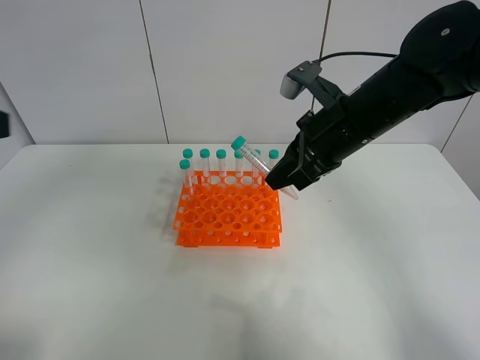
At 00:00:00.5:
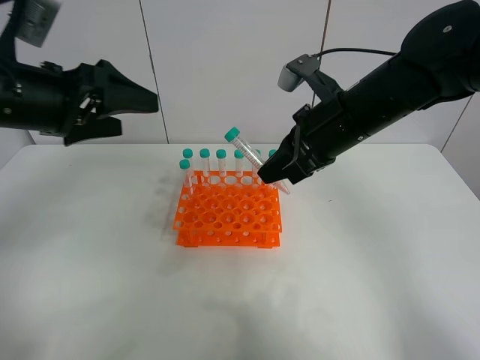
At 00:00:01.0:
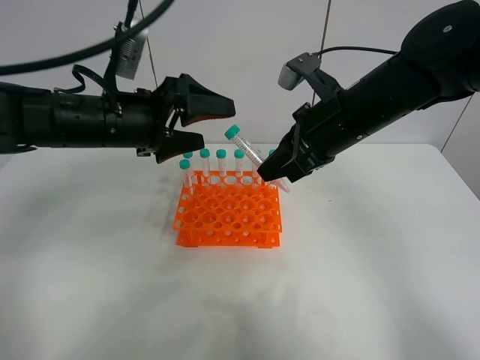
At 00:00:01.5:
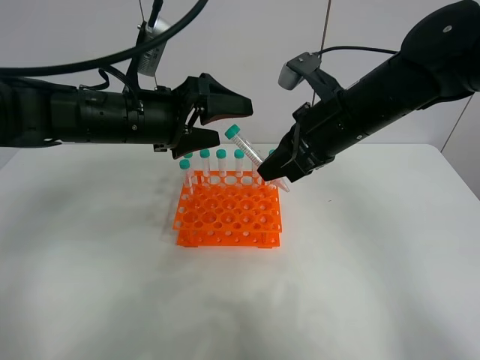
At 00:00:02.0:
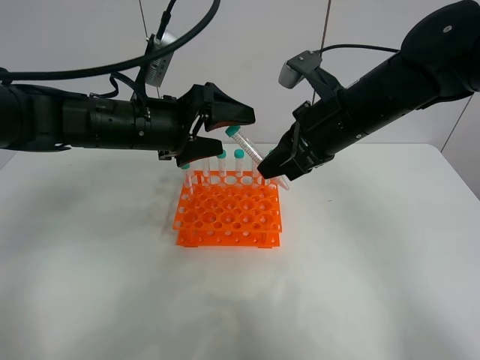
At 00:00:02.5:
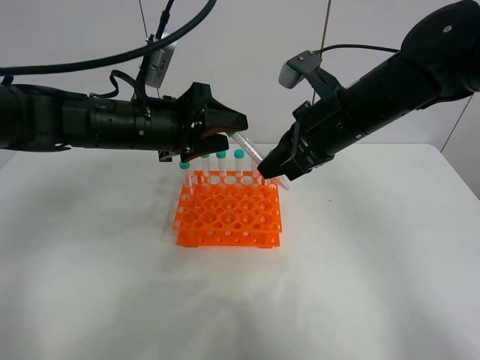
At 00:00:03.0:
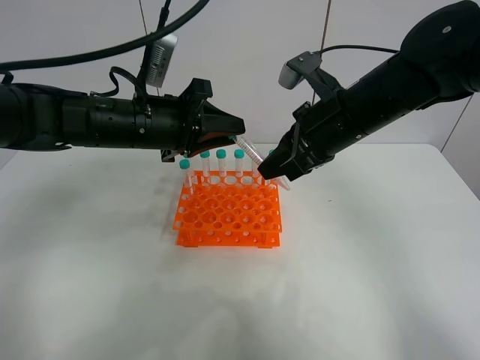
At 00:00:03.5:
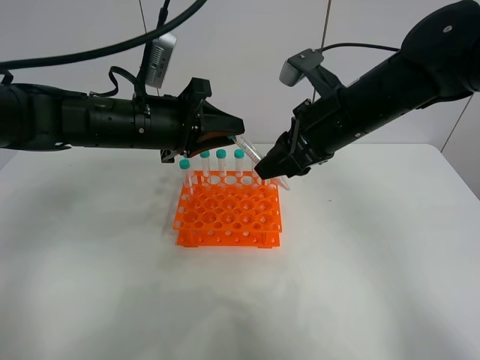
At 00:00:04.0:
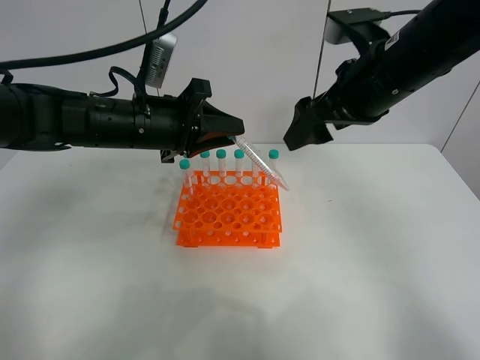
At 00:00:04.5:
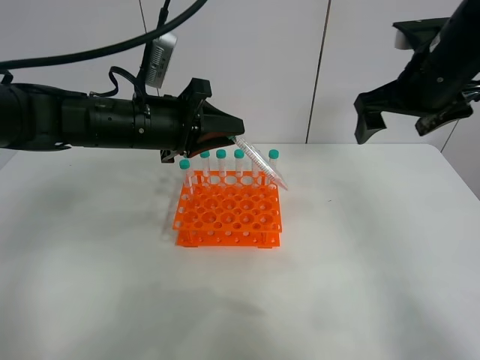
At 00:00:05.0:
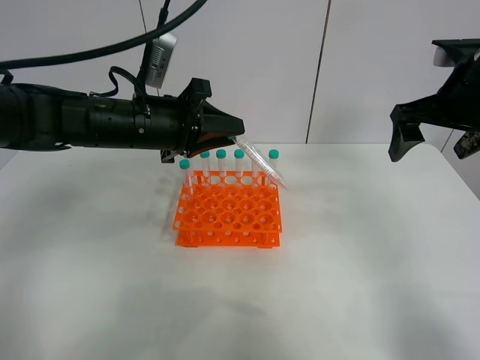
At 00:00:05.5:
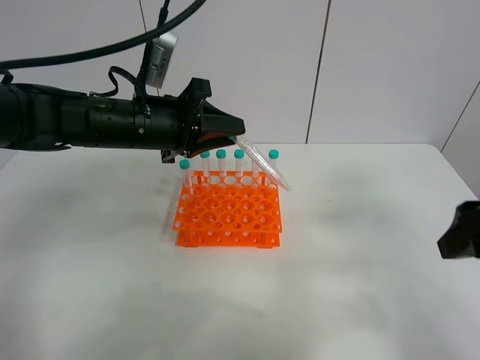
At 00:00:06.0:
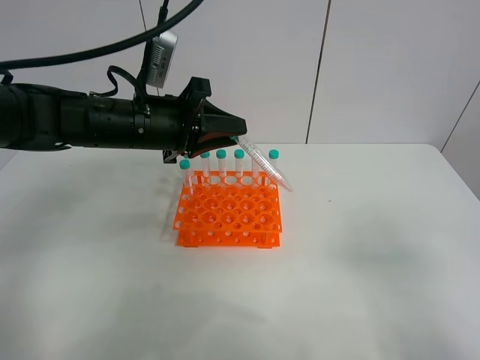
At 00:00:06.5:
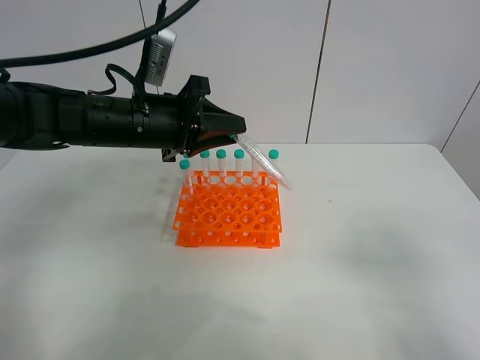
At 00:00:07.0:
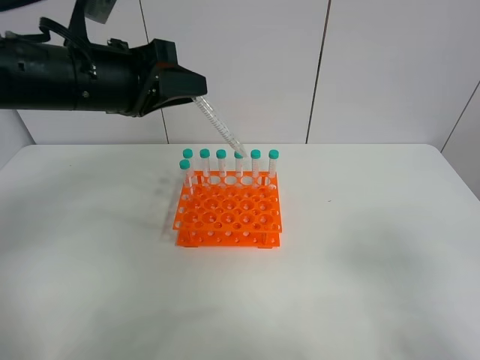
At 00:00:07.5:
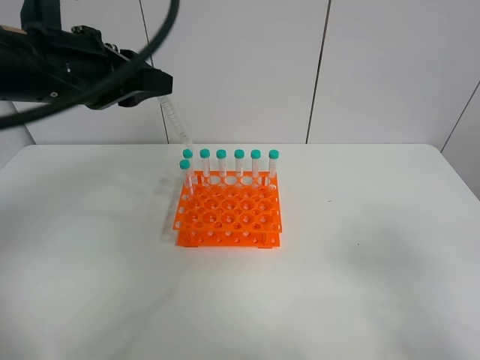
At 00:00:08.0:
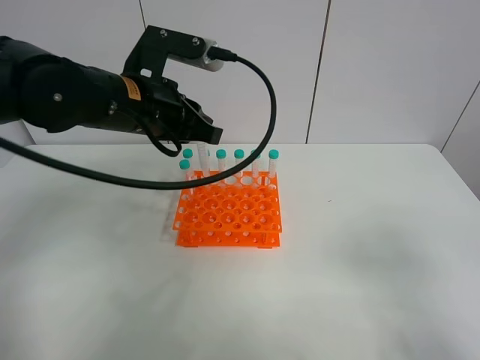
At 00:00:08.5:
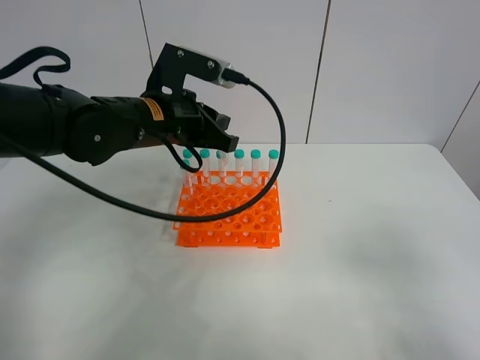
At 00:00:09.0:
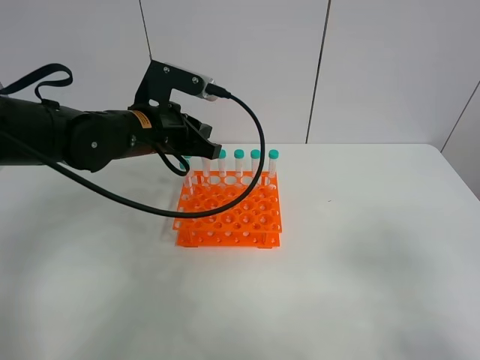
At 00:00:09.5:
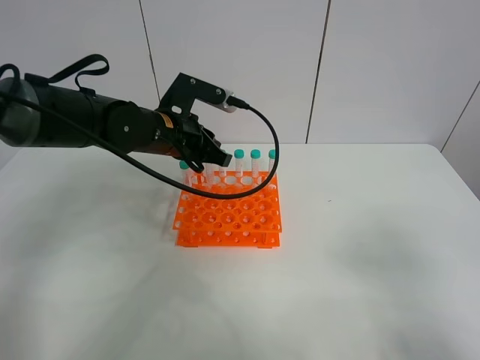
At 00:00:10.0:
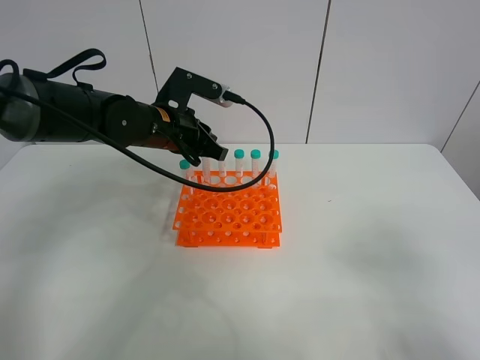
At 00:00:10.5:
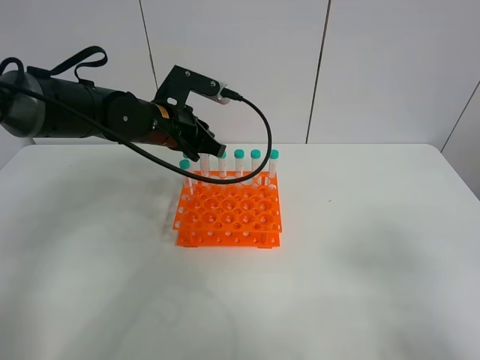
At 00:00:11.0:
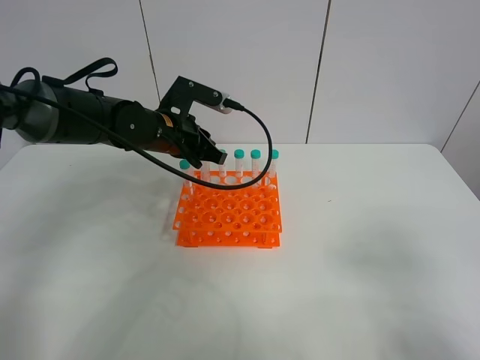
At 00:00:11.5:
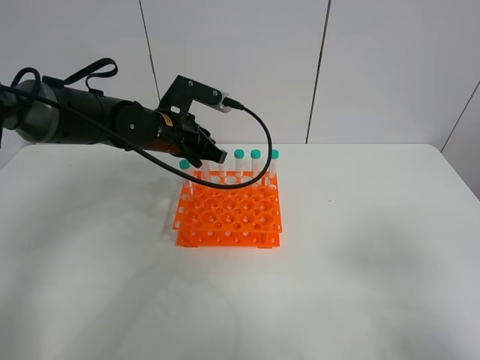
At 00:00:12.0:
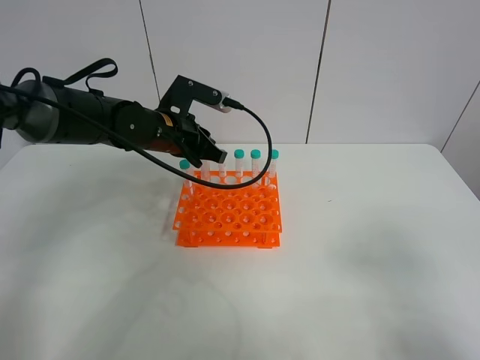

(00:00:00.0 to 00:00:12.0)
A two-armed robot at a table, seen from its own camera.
Task of the whole recording: Put the test tube on the table back onto the test tube rack.
Step, 00:00:00.0 - 00:00:04.0: Move the test tube from the right gripper to the left gripper.
00:00:00.0 - 00:00:02.0: The left gripper heads forward, to the right and downward, covering some 25 cm.
00:00:02.0 - 00:00:04.0: The left gripper closes, while the right gripper heads upward, covering some 5 cm, and opens.
00:00:04.0 - 00:00:06.0: The right gripper shifts approximately 30 cm backward and to the right.
00:00:08.0 - 00:00:10.0: The left gripper moves downward and forward, about 10 cm.
00:00:10.0 - 00:00:12.0: The grippers make only small movements.

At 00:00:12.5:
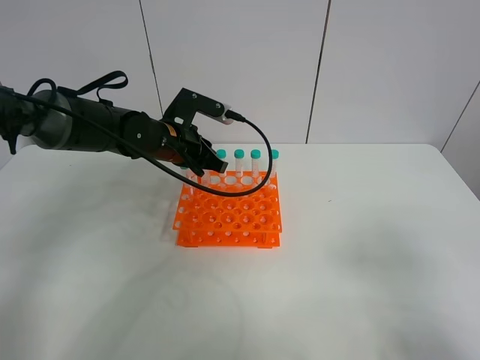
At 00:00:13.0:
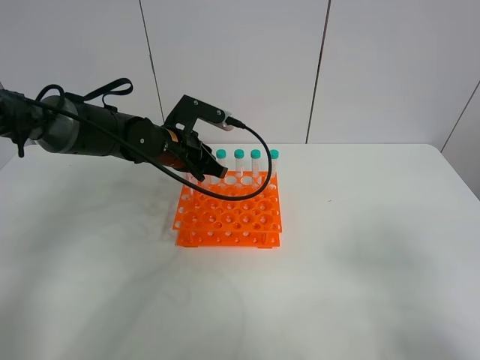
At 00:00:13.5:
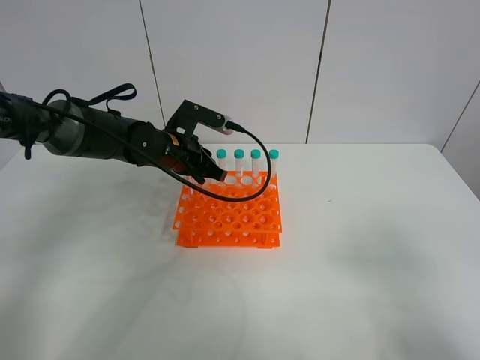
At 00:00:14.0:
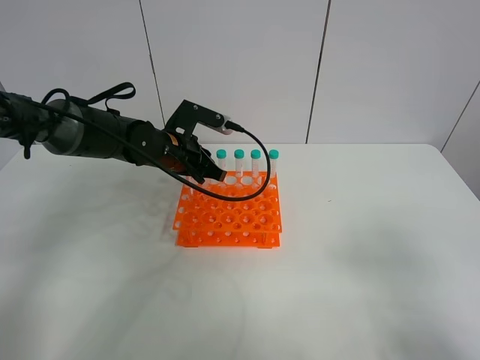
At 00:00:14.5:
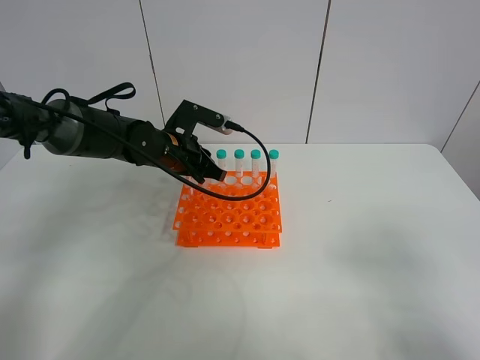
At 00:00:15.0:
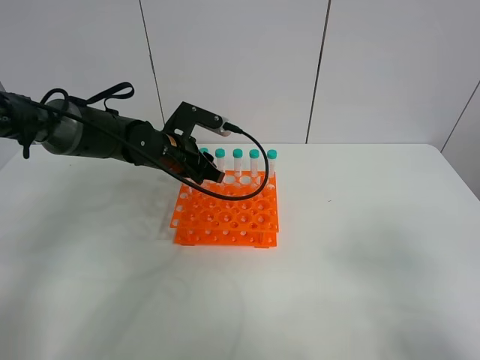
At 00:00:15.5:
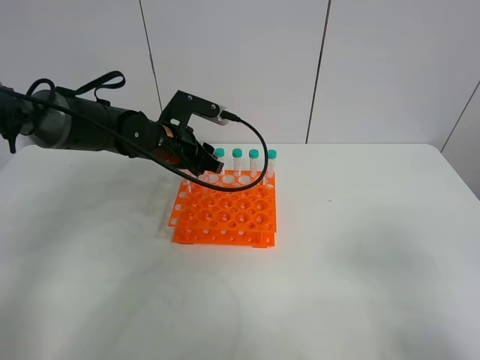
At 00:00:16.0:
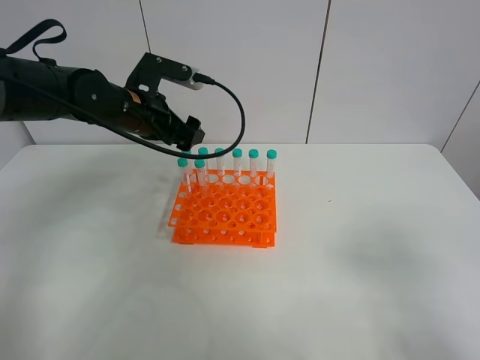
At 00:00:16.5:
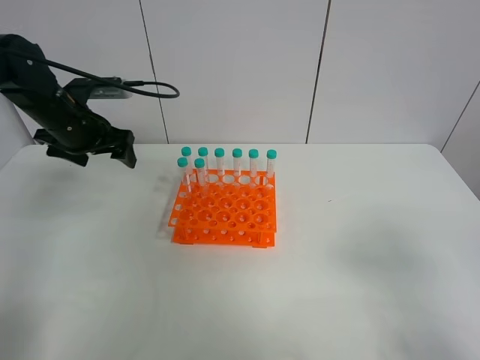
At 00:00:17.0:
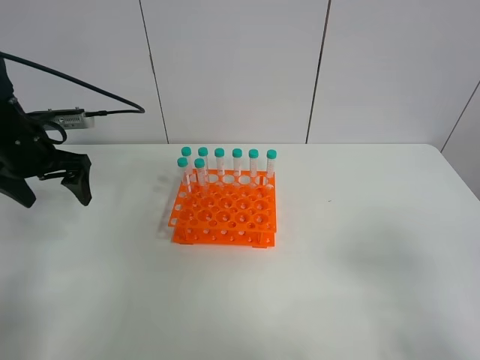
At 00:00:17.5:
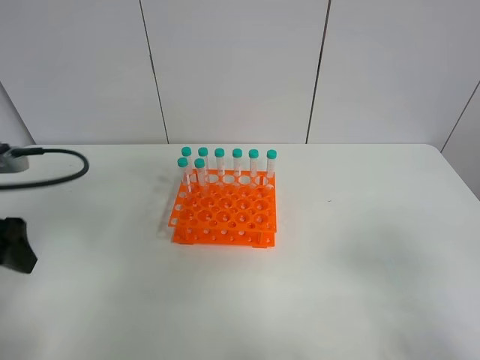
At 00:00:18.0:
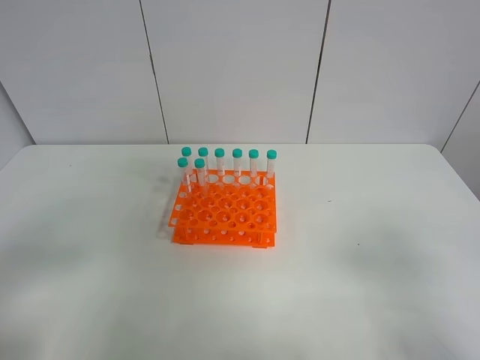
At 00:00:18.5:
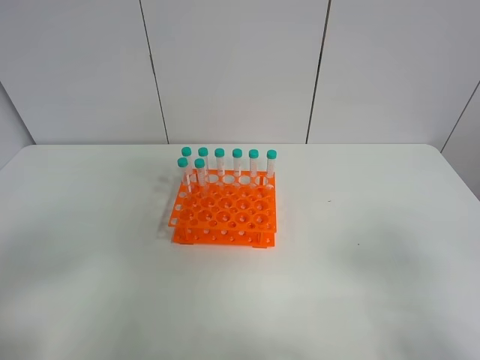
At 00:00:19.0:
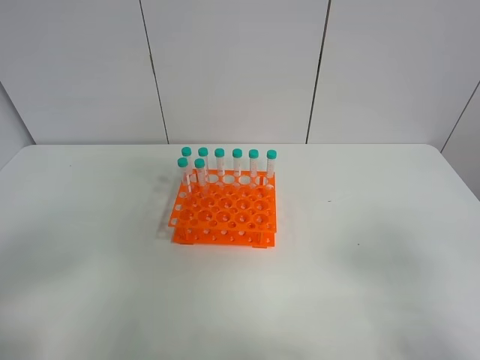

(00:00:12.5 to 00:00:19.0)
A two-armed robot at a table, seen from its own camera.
Task of the whole recording: Put the test tube on the table back onto the test tube rack.
Step, 00:00:12.5 - 00:00:16.0: Place the test tube on the test tube rack with the left gripper.
00:00:12.5 - 00:00:14.5: The grippers make only small movements.
00:00:14.5 - 00:00:17.0: The left gripper moves to the left, some 20 cm, and opens up.
00:00:17.0 - 00:00:19.0: The left gripper shifts roughly 35 cm backward.
